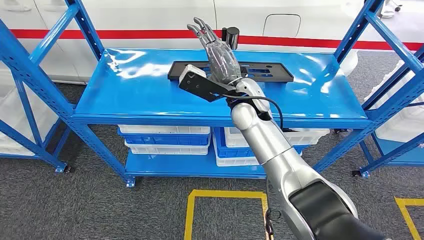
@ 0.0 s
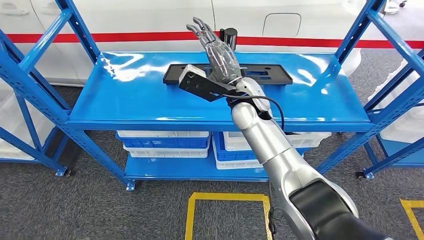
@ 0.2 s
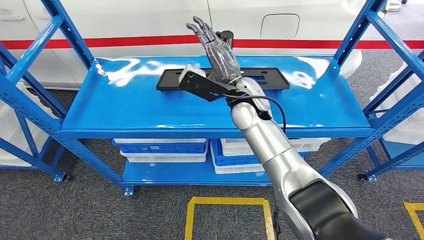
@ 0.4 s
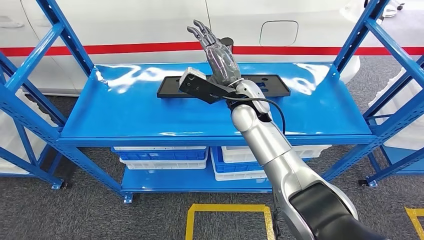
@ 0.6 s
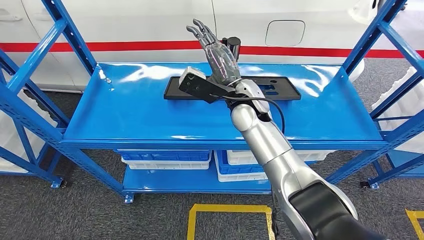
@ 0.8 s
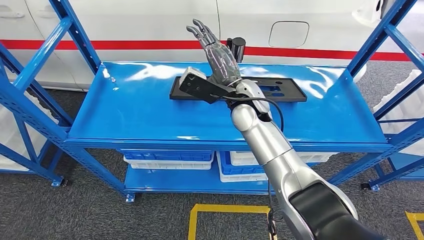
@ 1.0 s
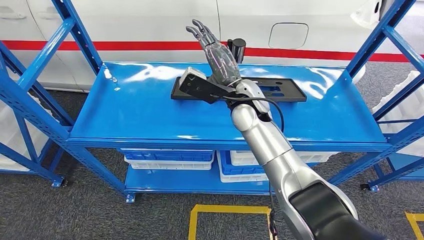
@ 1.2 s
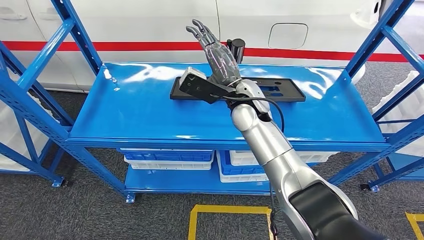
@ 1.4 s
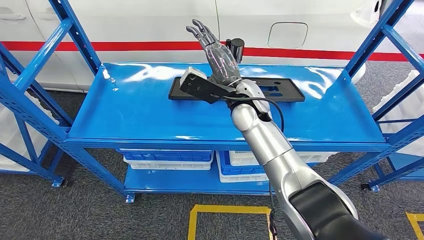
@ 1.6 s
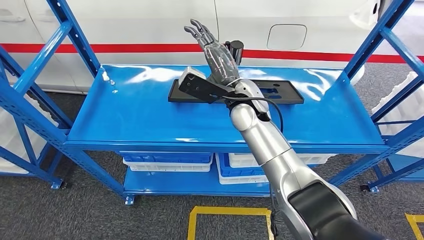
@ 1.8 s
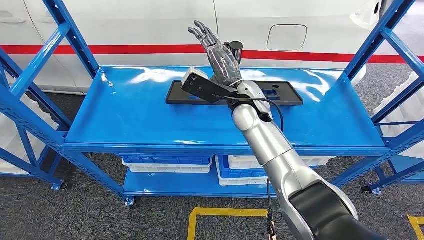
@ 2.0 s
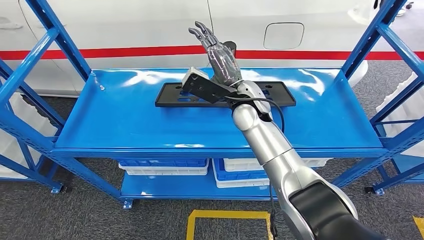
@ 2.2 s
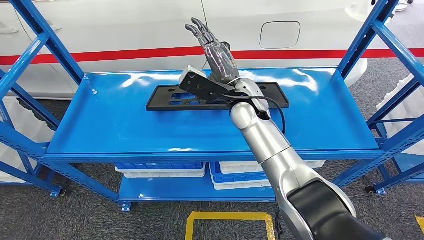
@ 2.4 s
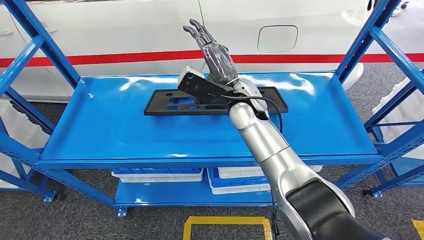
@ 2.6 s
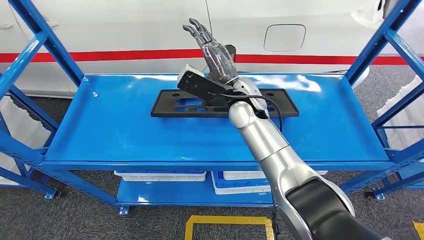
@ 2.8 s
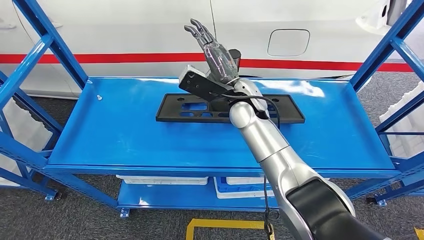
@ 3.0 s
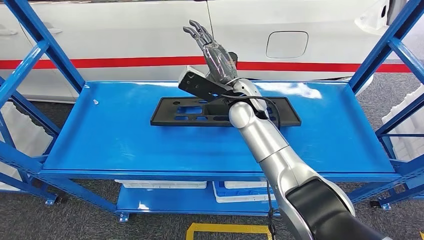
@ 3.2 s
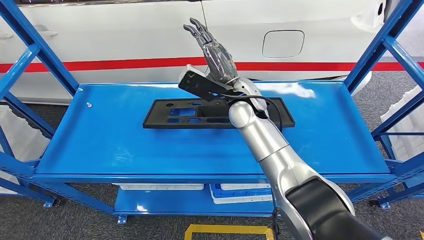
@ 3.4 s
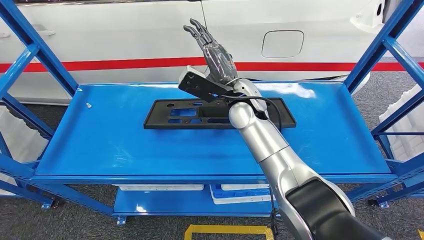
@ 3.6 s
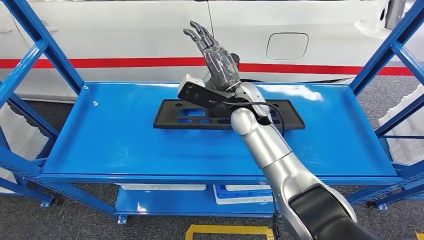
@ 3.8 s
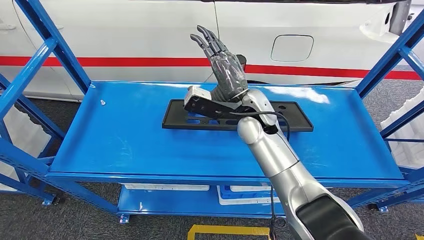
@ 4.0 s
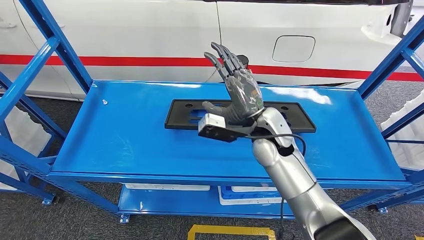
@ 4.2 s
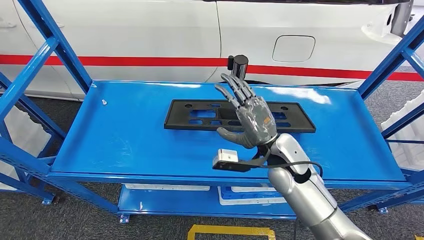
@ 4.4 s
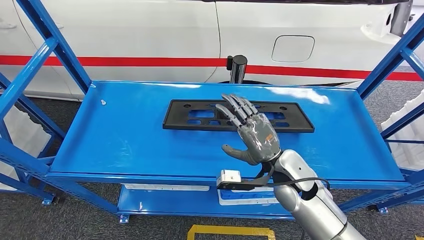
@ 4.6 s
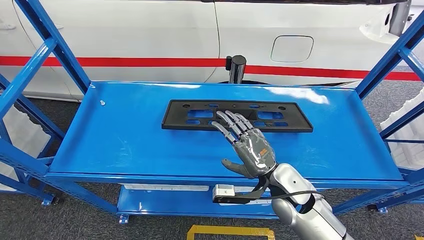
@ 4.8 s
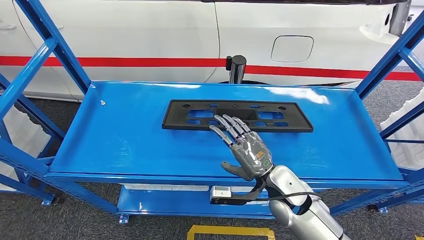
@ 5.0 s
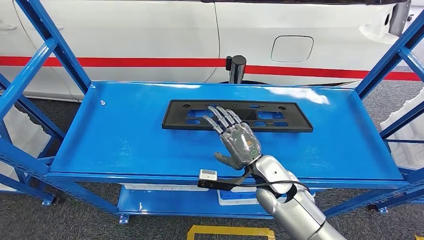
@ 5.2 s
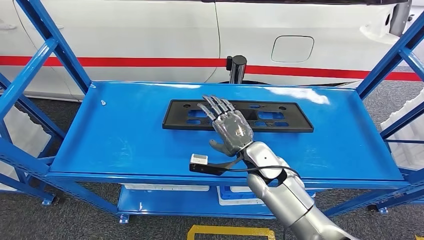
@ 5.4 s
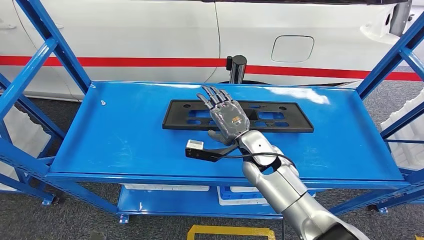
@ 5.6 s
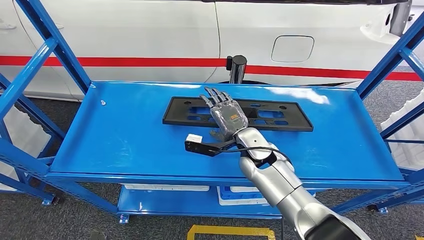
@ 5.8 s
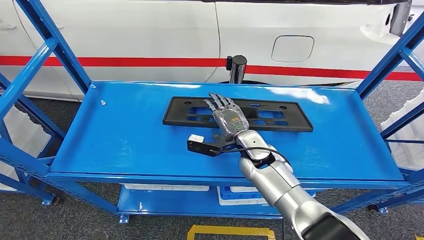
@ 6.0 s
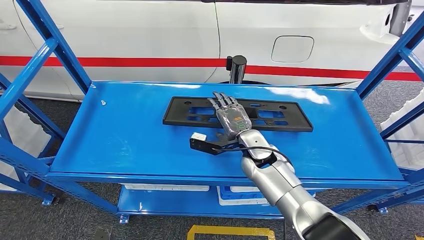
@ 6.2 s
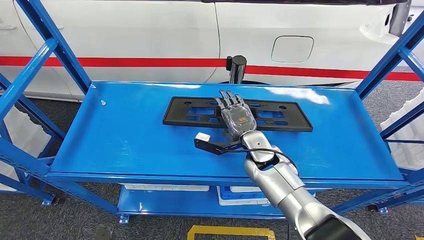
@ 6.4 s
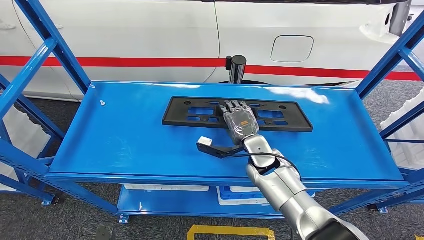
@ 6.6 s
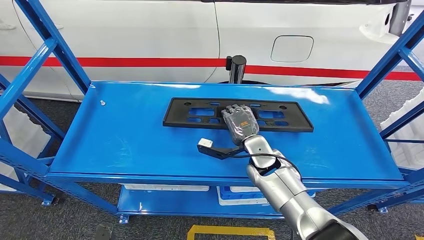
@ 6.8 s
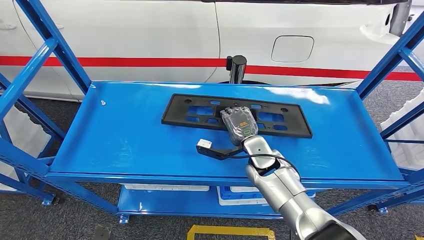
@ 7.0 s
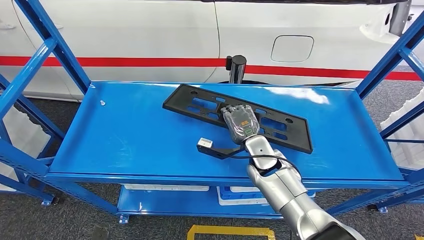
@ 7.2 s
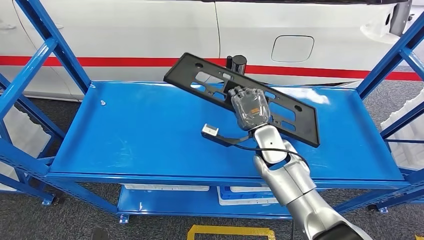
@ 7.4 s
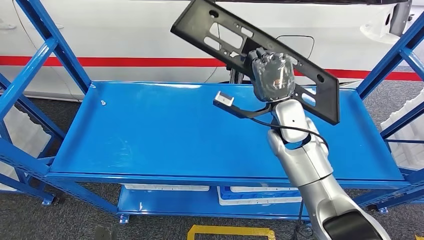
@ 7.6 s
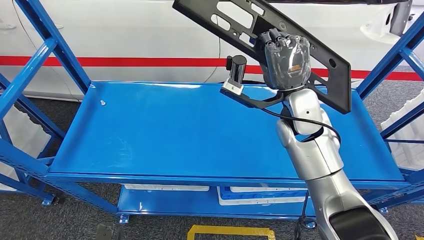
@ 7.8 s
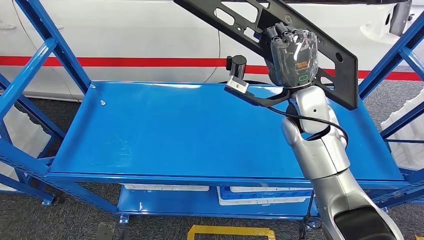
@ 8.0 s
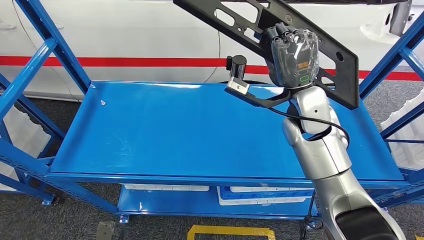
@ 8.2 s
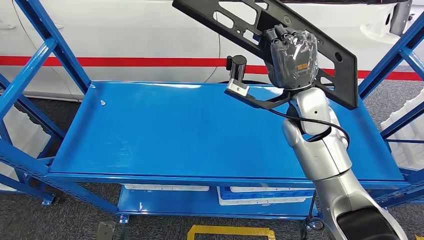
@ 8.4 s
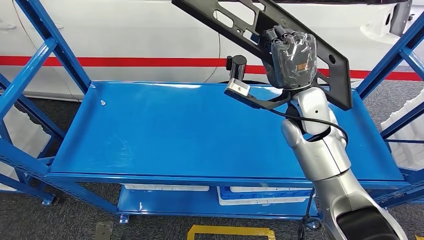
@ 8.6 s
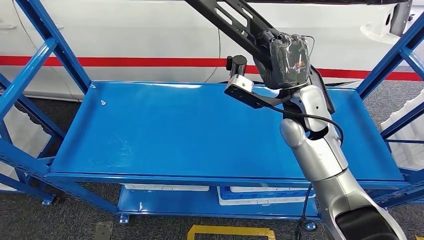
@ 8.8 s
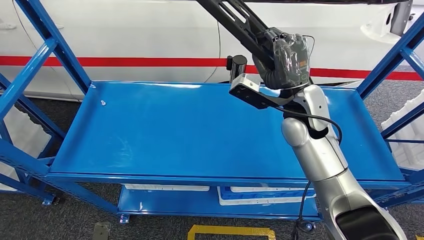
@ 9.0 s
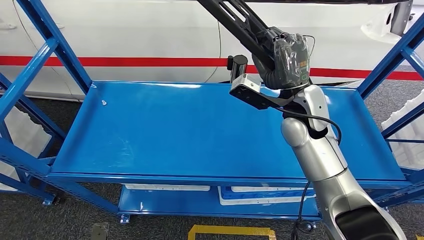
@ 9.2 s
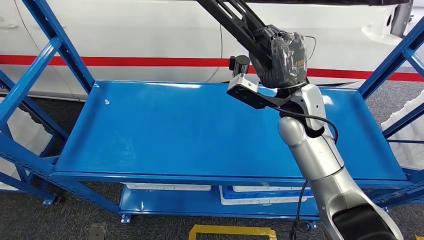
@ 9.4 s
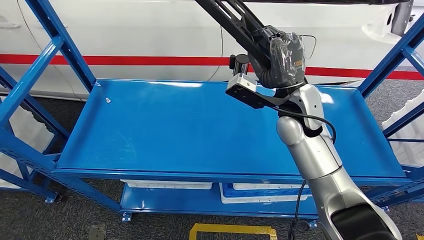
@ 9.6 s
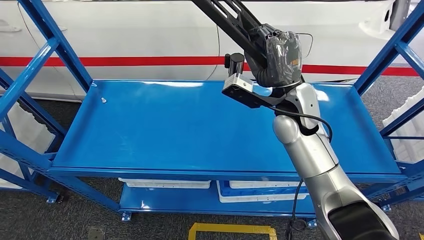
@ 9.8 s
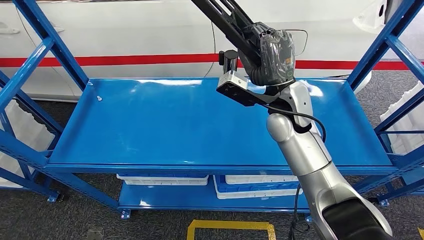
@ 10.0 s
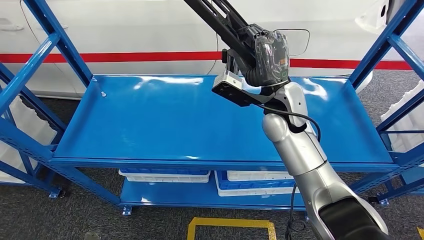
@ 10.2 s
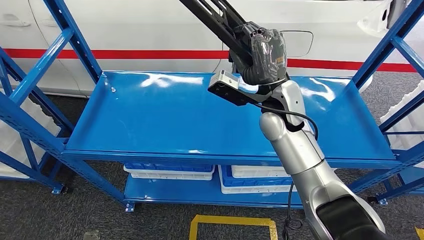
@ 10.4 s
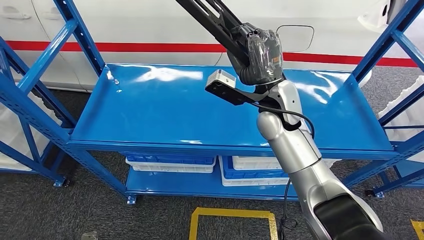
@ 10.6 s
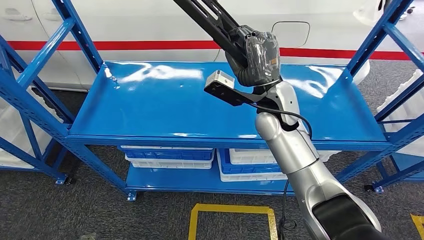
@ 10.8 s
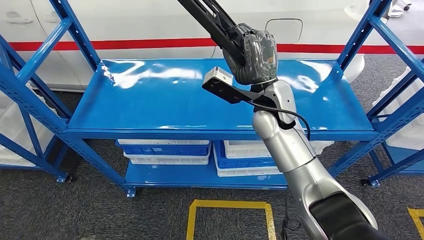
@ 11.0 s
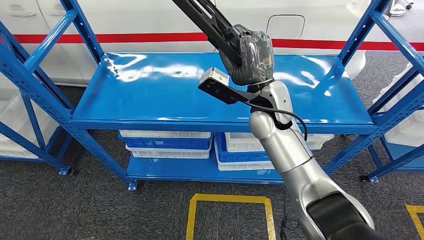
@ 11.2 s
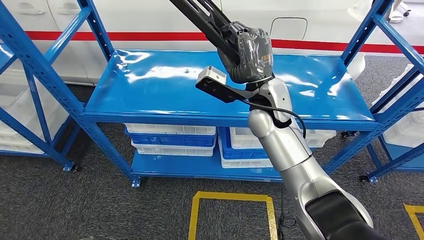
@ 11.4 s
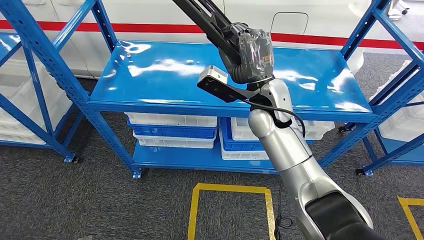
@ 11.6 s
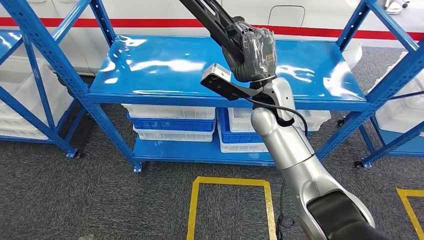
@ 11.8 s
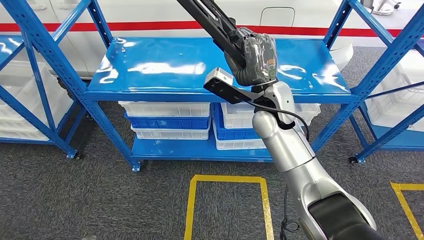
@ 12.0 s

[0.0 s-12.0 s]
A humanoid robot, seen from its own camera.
4.4 to 6.0 s: The right hand shifts some 10 cm forward, downward and to the left; the left hand shifts by some 5 cm.
7.6 to 9.0 s: The right hand changes place by about 5 cm.

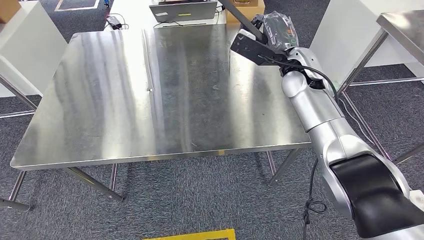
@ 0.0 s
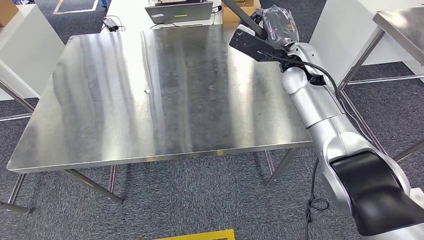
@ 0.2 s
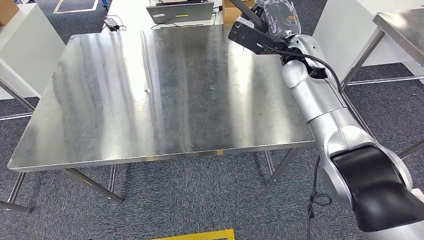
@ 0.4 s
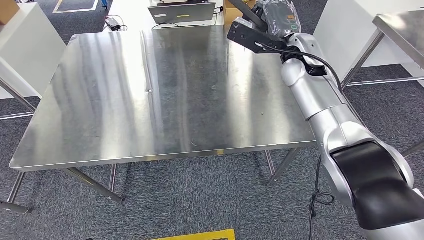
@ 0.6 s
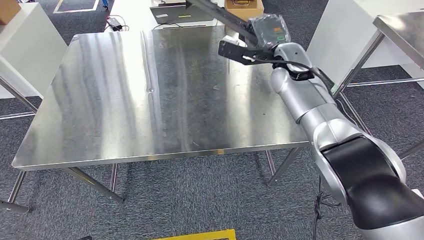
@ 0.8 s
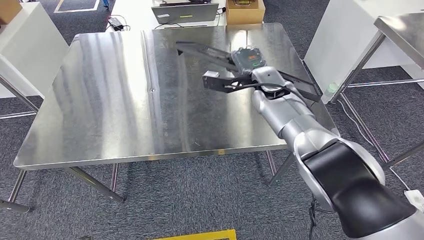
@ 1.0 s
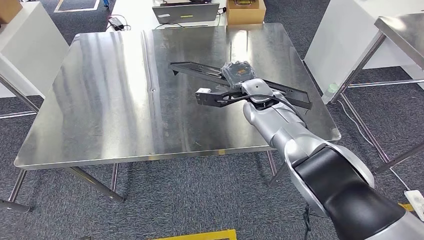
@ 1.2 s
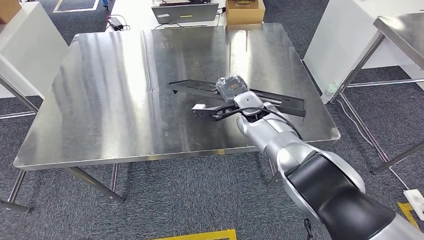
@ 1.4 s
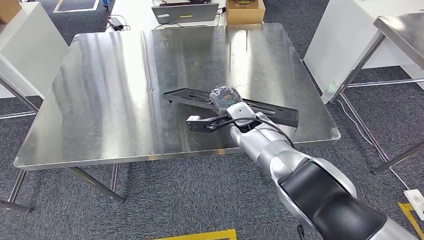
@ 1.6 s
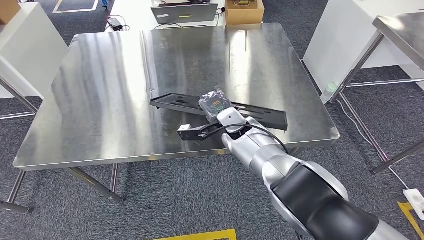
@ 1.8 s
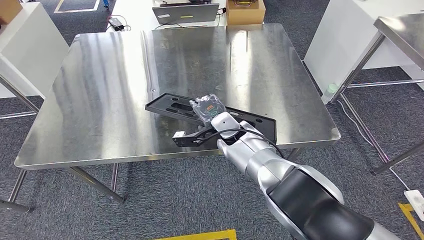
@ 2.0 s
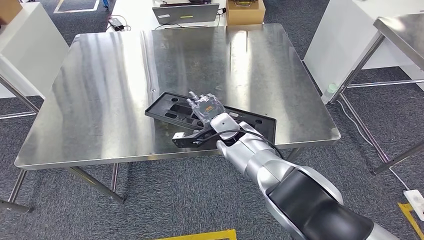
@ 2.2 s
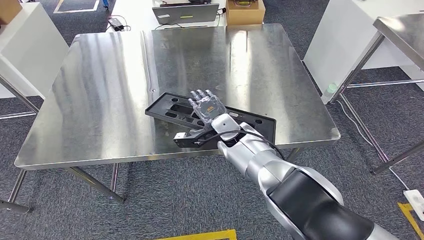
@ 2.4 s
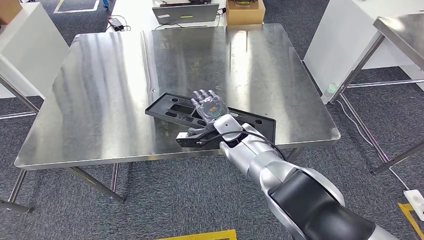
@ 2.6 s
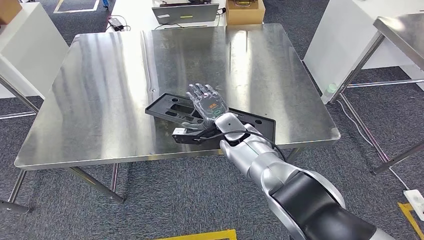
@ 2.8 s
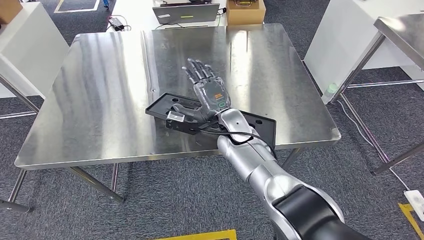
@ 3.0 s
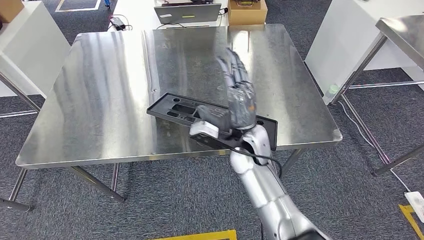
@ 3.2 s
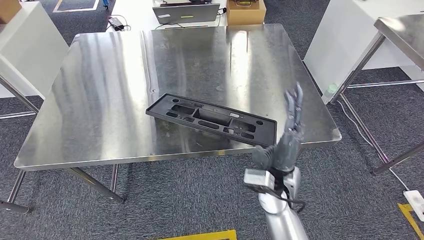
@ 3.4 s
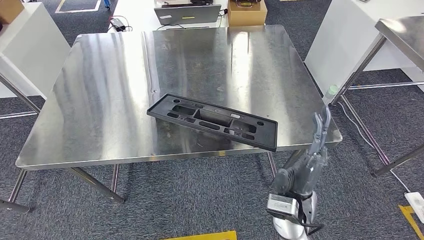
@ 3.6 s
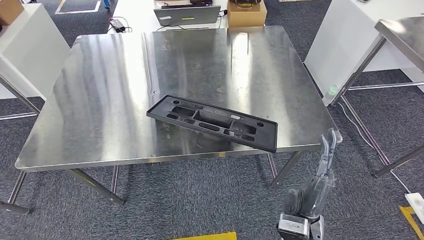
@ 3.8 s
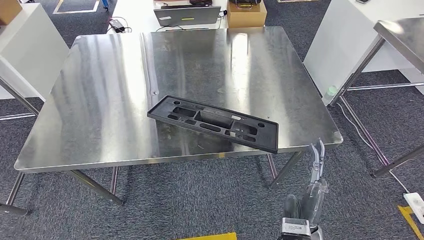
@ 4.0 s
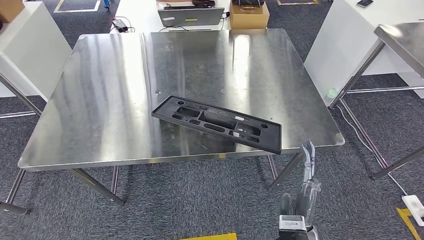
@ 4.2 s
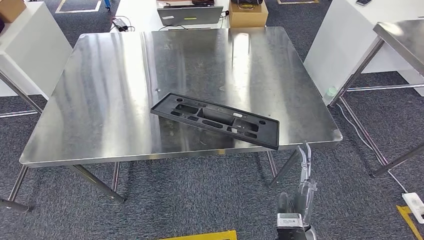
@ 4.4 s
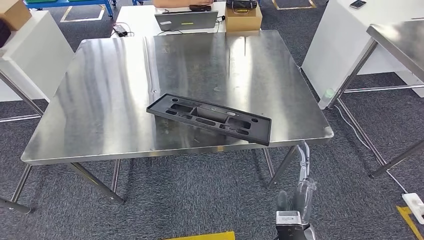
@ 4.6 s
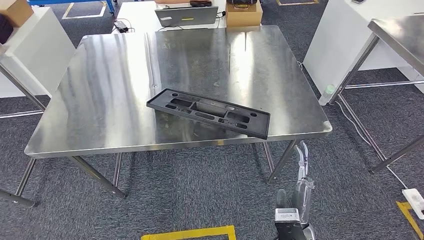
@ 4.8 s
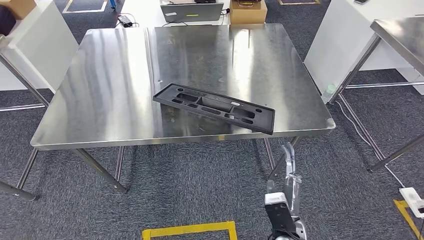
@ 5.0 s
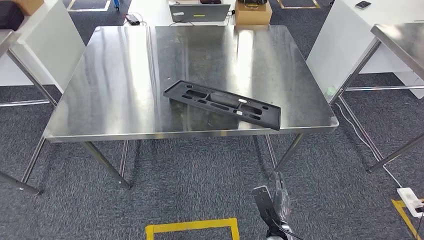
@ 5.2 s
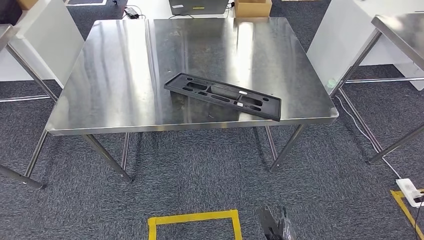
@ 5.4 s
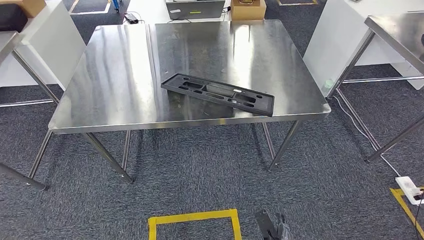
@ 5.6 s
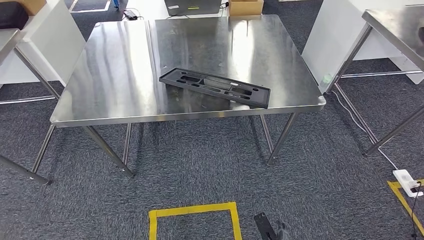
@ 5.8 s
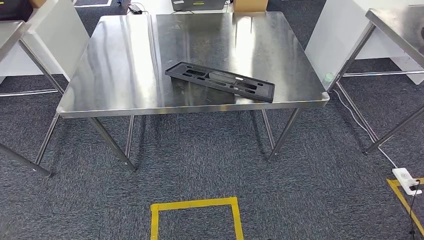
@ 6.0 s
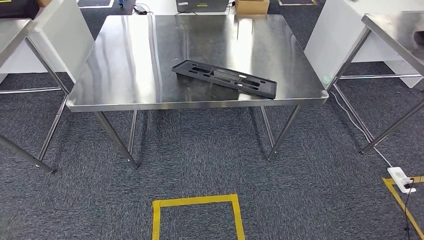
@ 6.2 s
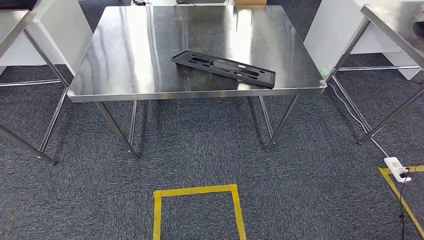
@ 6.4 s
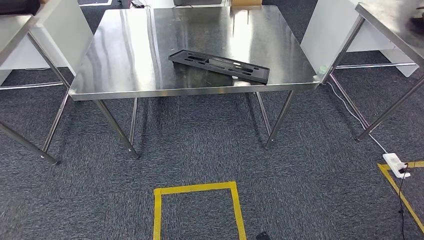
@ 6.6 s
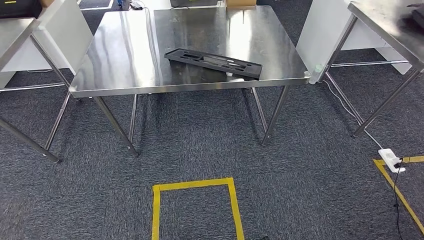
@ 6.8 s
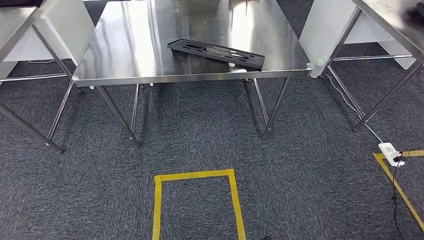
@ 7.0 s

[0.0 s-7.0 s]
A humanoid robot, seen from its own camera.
Step, 0.0 to 6.8 s: Insert the large material into the corresponding slot on the workbench.
1.4 to 2.8 s: The right hand shifts some 5 cm to the left.
